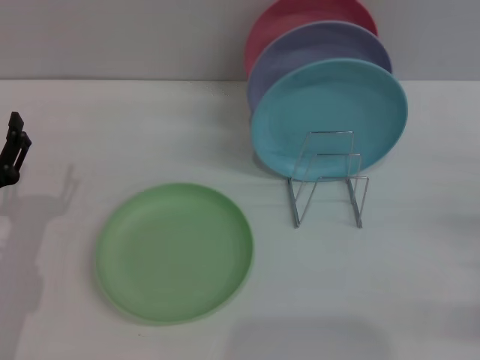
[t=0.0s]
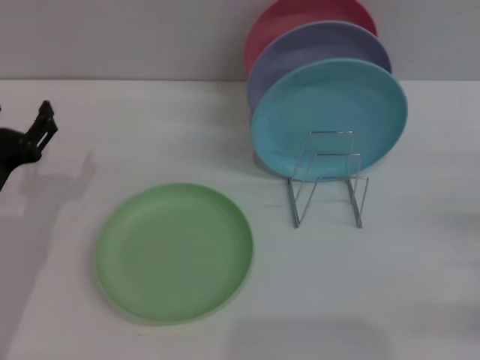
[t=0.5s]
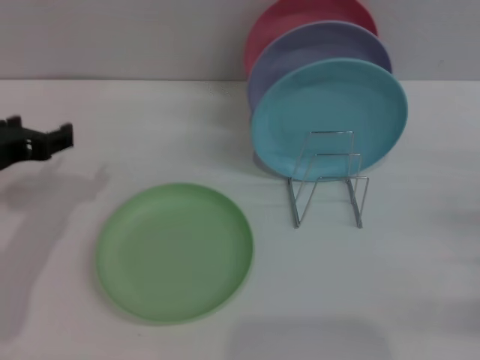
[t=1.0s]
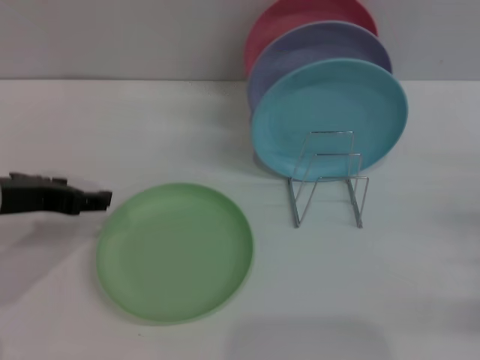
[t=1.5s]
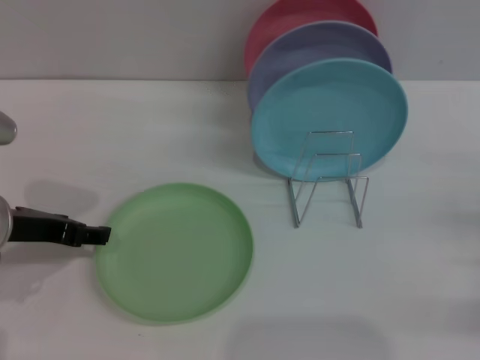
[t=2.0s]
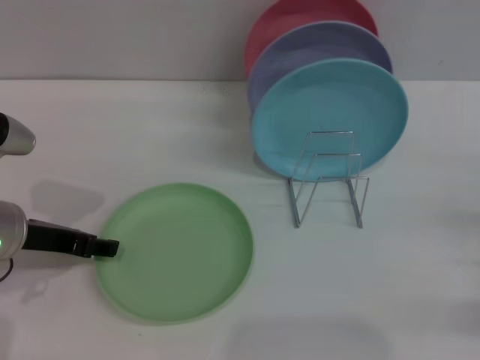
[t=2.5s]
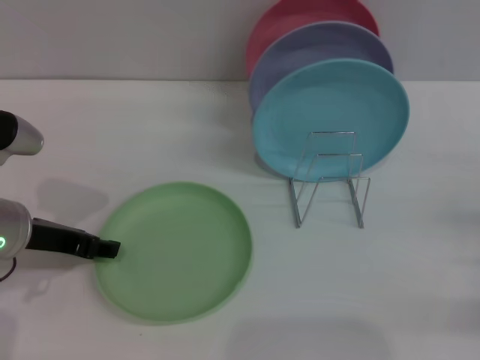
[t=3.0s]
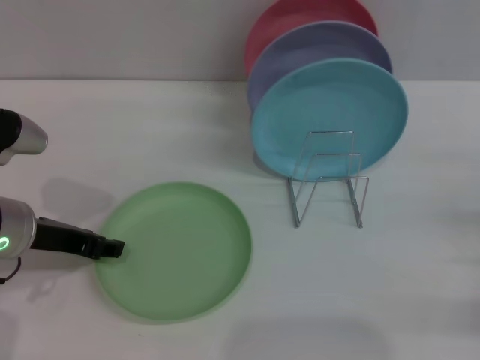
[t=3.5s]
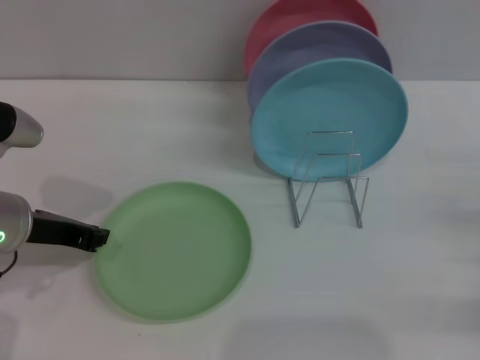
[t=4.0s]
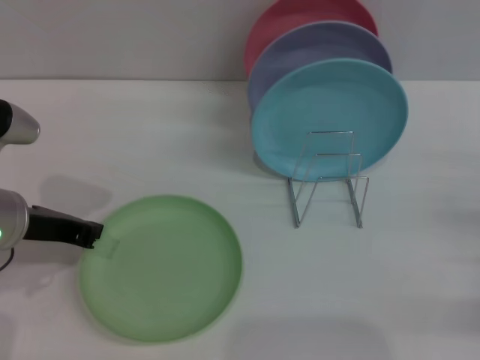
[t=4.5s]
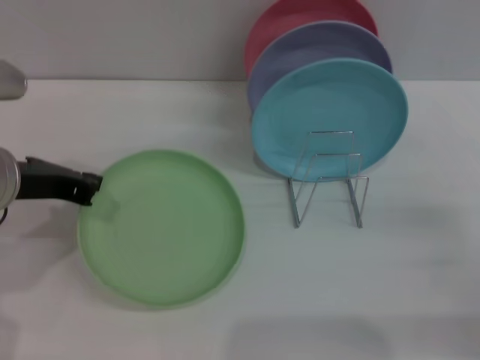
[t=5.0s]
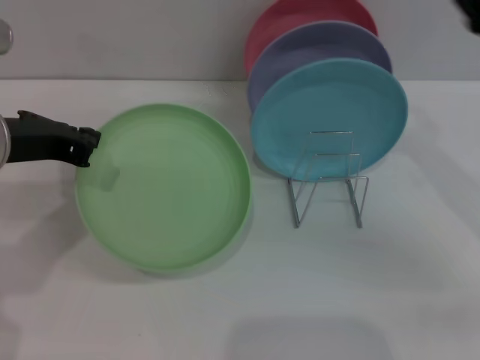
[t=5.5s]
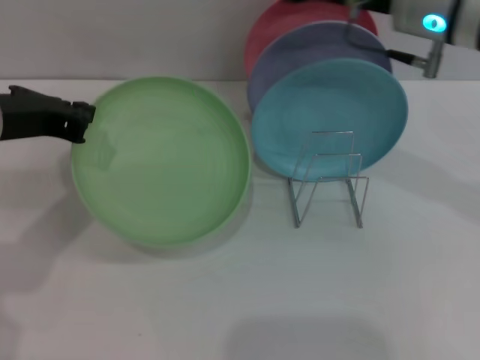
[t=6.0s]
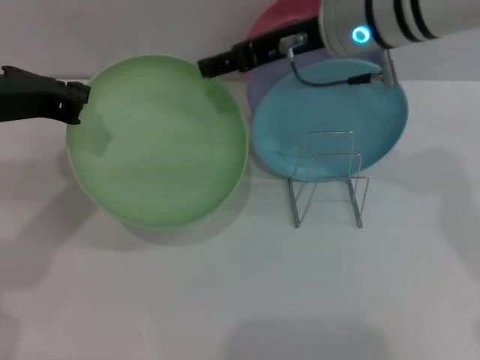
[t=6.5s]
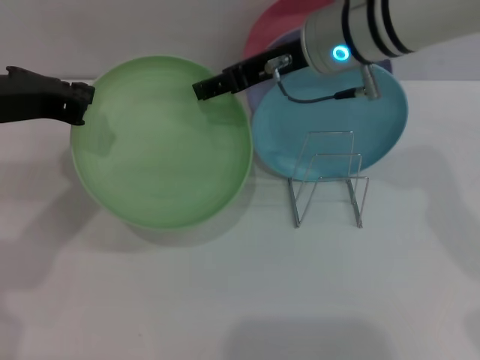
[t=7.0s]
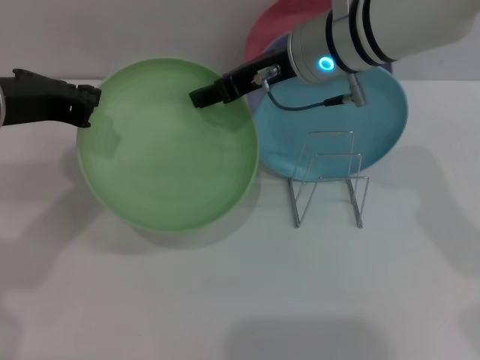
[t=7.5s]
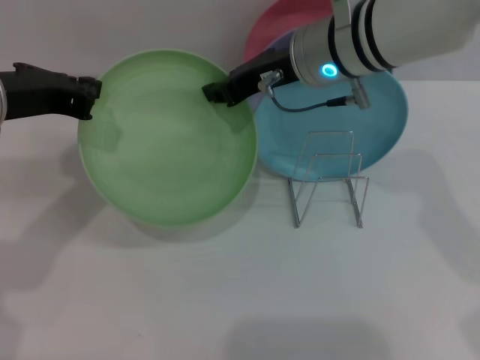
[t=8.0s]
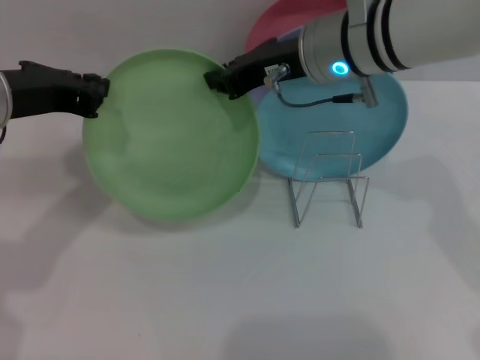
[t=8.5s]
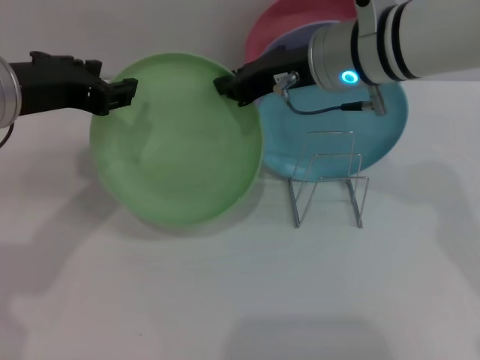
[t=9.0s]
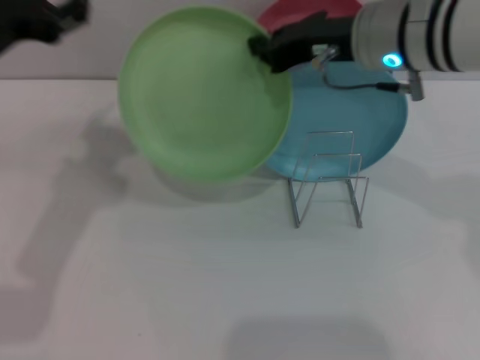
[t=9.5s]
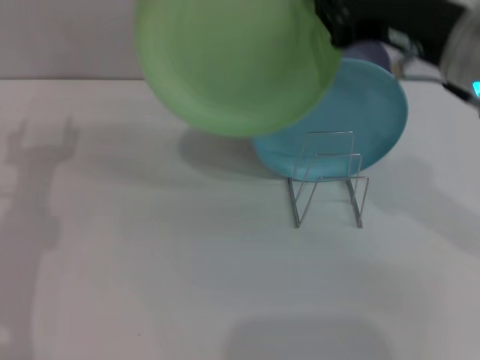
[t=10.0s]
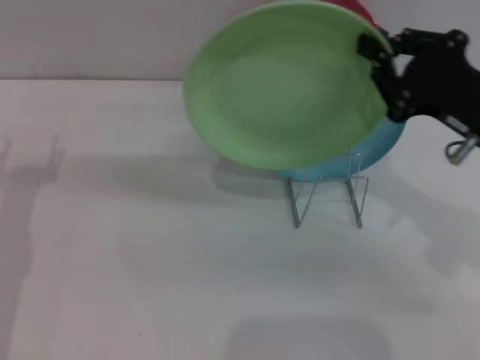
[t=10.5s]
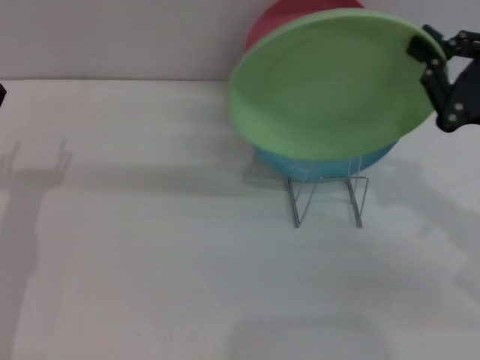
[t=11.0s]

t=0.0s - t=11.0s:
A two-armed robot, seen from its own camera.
Task of the whole recording: Grip the plate with one hand, pass it to the other, then set it on the shelf.
Step, t=0.0s - t=5.5s: Pick up the plate with the left gripper.
Step, t=6.0s - t=9.0s: Pass the plate from the left gripper to the right gripper.
t=0.0s - t=2.0s: The left gripper moves upward and forward, approximately 10 cm.
t=2.0s - t=3.5s: There are only small adjustments of the grippers.
t=3.5s - t=5.5s: The right gripper is displaced upward, forward and to the left by about 20 cm; the left gripper is displaced upward by approximately 10 cm, and closes up.
t=5.5s - t=7.5s: The right gripper moves to the left and forward, approximately 20 cm.
t=7.5s - t=9.0s: The right gripper closes its fingers, while the left gripper opens.
t=9.0s - t=11.0s: The right gripper is displaced to the right and backward by about 20 cm; the left gripper shifts roughly 15 cm downward and to the left, and opens up.

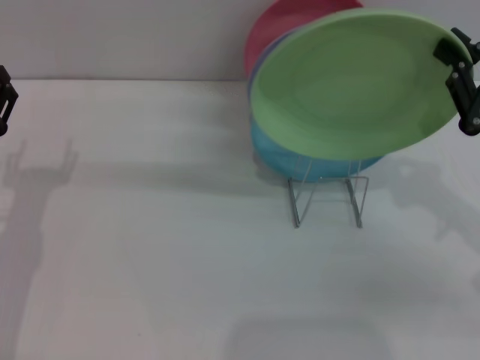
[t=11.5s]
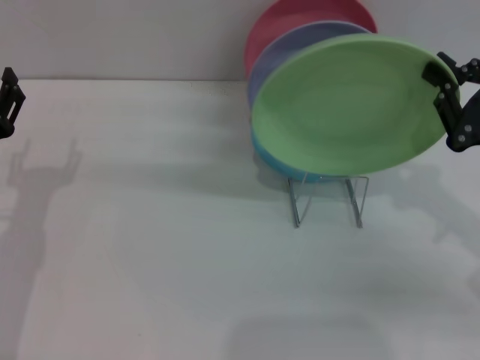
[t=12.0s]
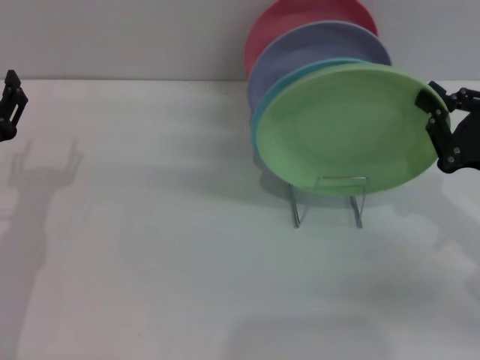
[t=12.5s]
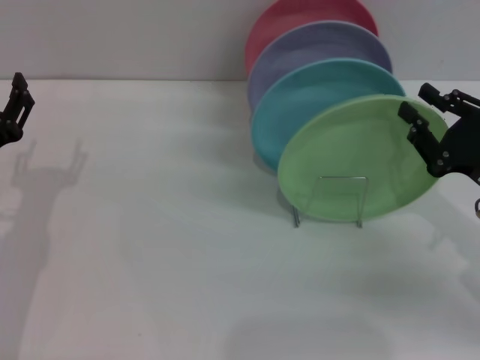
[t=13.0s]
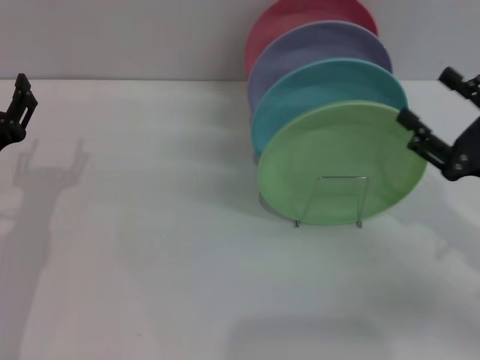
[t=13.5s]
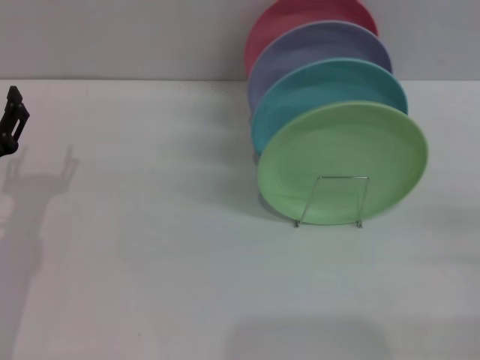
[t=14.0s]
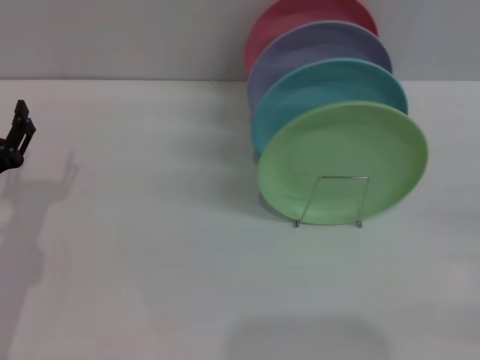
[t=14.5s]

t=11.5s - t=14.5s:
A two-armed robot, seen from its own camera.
Task of the whole recording: Grip the plate with one hand, pass it to the other, then set it on the shelf.
Step, t=11.5s - t=13.5s: Place the plate on the shelf with the right gripper.
t=11.5s - t=13.0s: The right gripper travels downward by about 5 cm.
t=13.0s - t=14.5s: The right gripper goes roughly 10 cm to the right and backward, and opens up.
